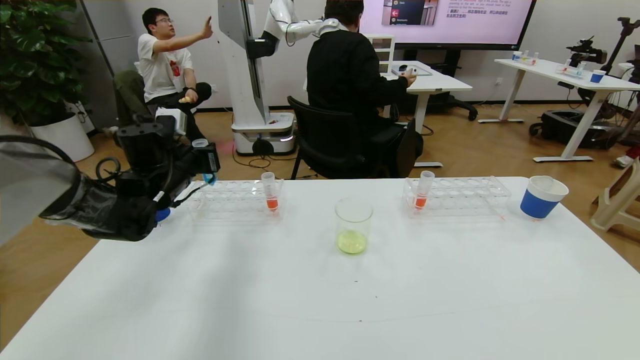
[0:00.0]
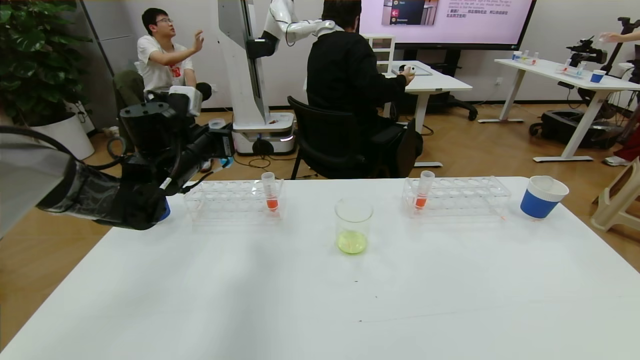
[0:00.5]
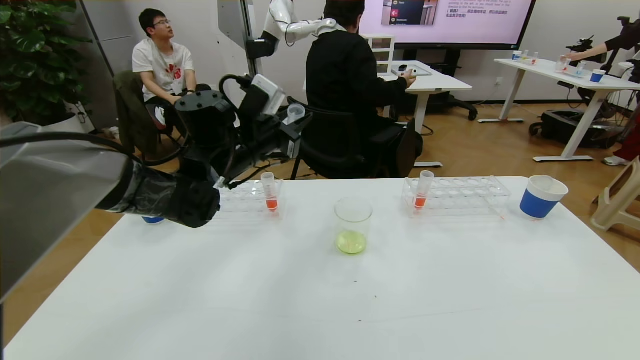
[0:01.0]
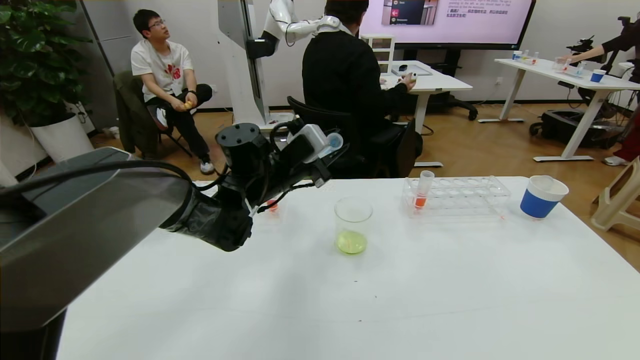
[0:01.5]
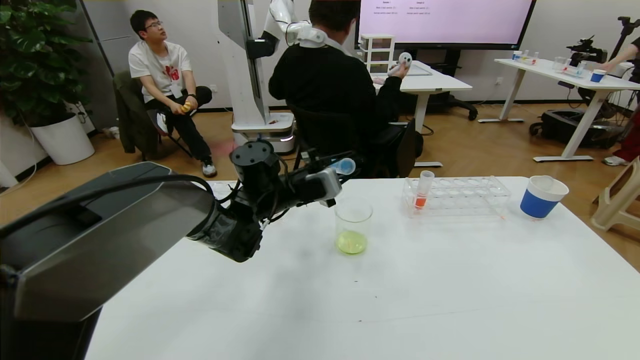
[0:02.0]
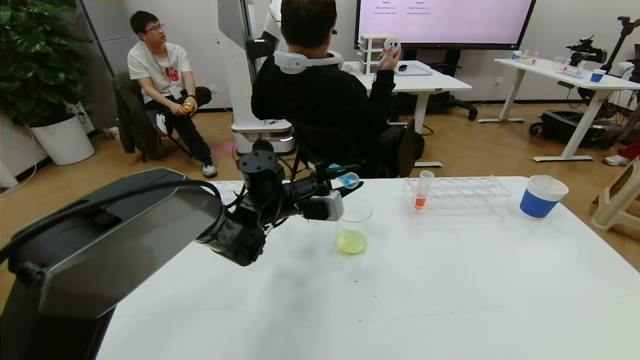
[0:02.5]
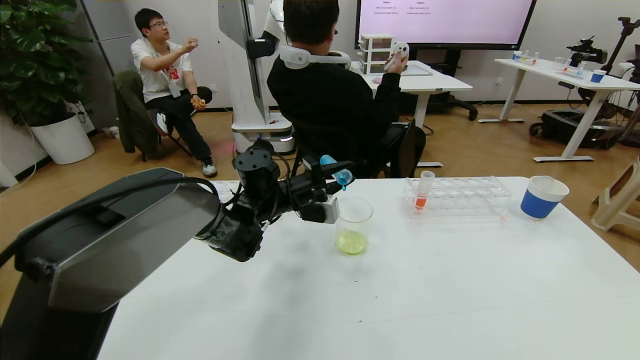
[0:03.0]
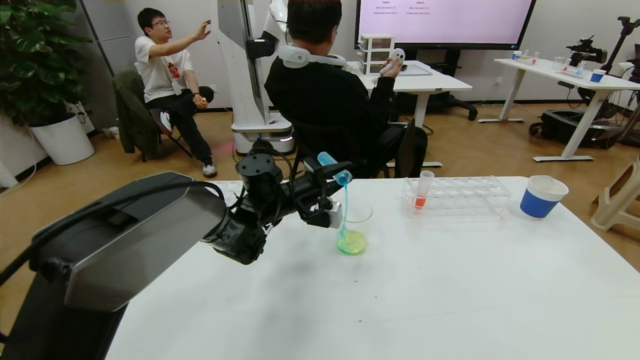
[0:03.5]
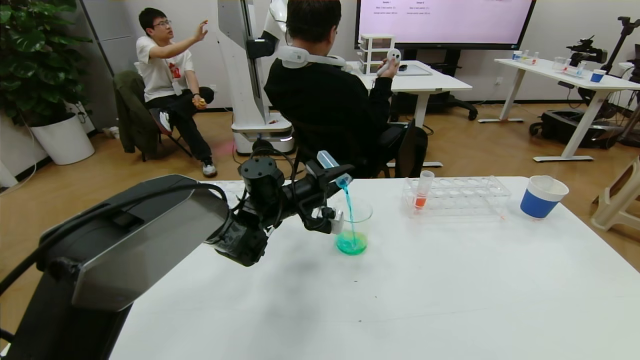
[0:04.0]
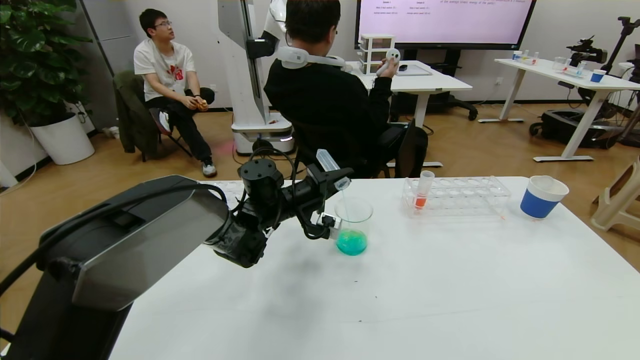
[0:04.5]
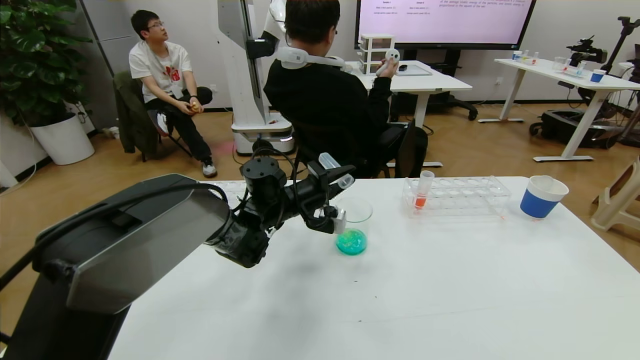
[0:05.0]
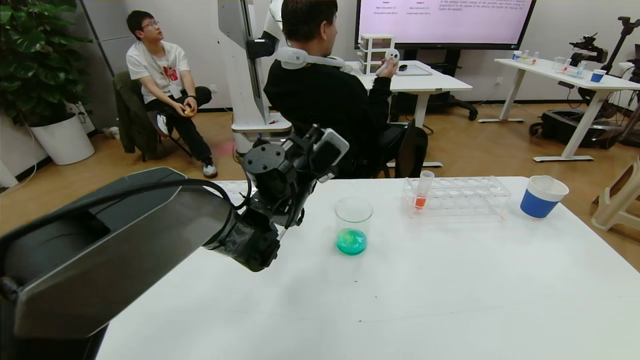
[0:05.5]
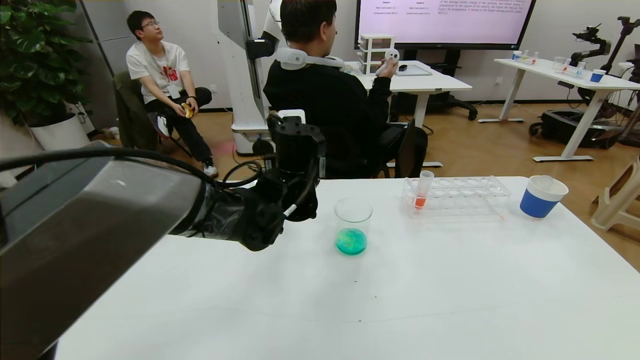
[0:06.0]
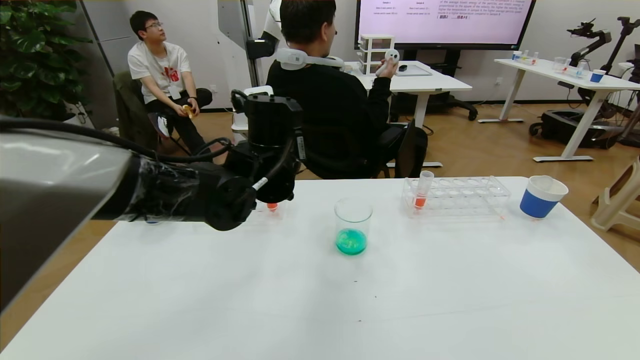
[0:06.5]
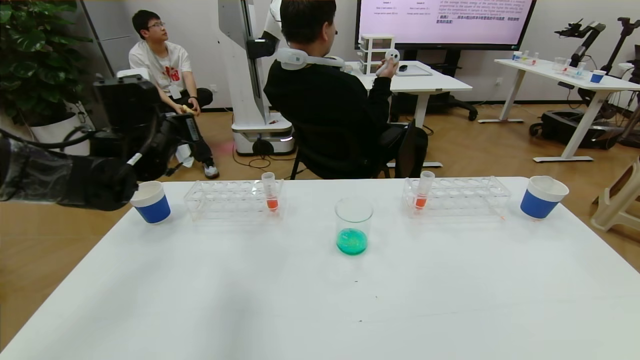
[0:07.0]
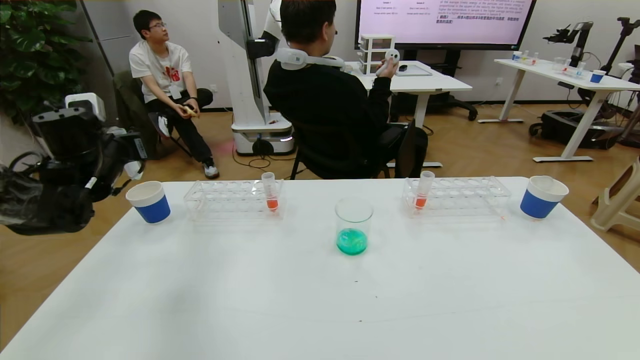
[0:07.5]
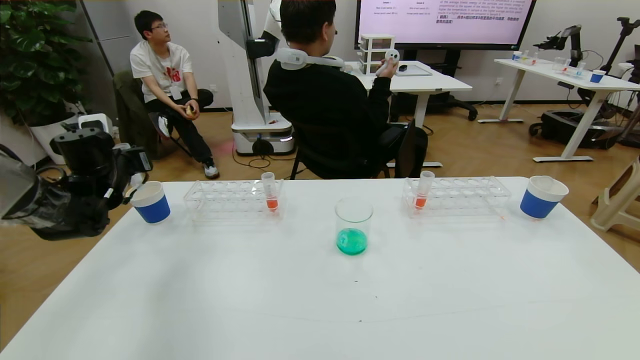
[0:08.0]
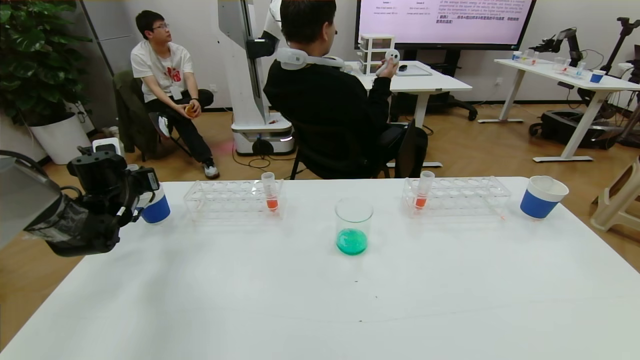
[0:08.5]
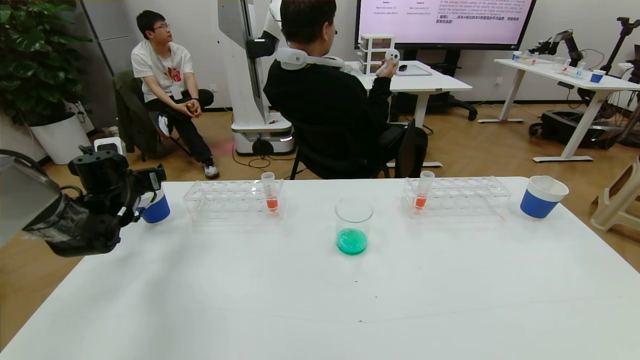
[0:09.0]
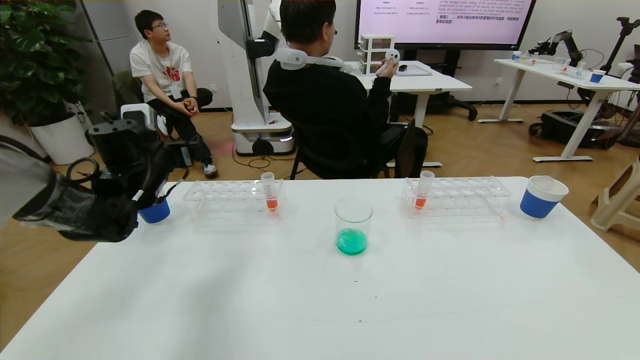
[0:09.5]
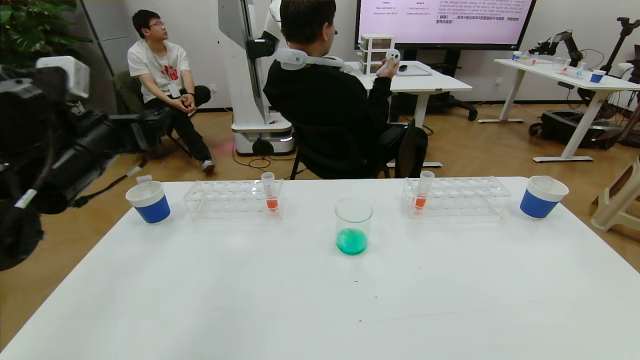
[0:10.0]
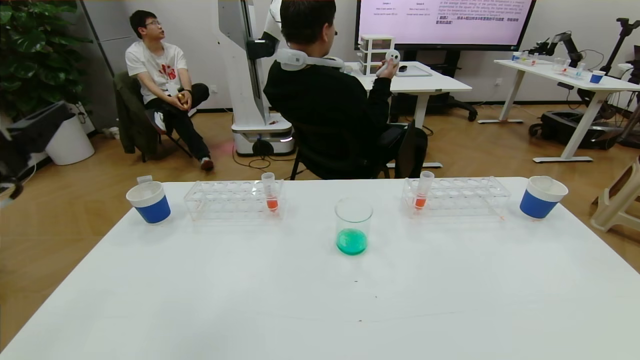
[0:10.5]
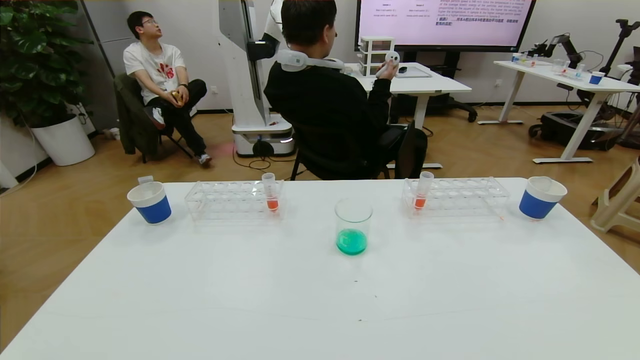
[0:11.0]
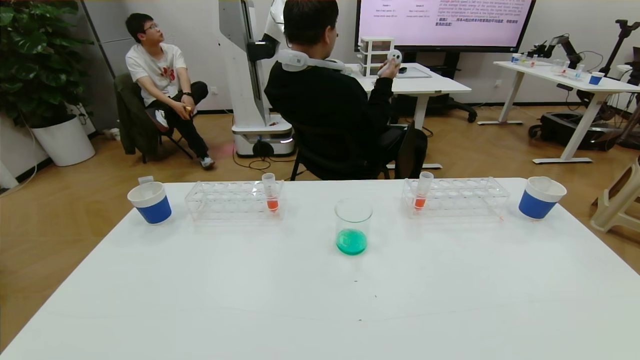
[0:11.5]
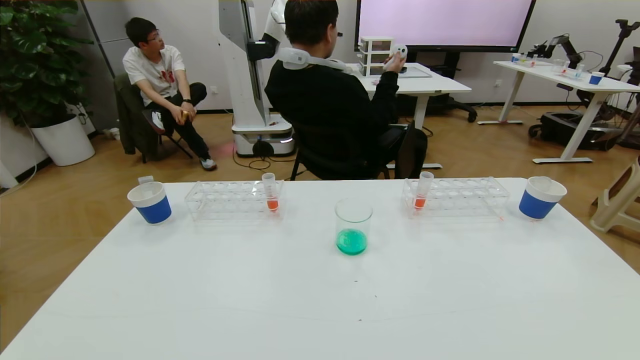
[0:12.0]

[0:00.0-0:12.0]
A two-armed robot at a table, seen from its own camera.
Task of the whole recording: pick up the test tube with yellow pigment and the test tube with blue pigment by grippers and pour them into the beaker.
0:00.0 to 0:02.0: The left gripper goes approximately 20 cm to the right.
0:04.0 to 0:06.0: The left gripper is displaced upward and backward by about 10 cm.
0:06.0 to 0:08.0: The left gripper moves to the left, some 35 cm.
0:08.0 to 0:10.0: The left gripper goes roughly 20 cm backward, upward and to the right, and opens up.
0:10.0 to 0:12.0: The left gripper moves backward and downward, approximately 35 cm.
